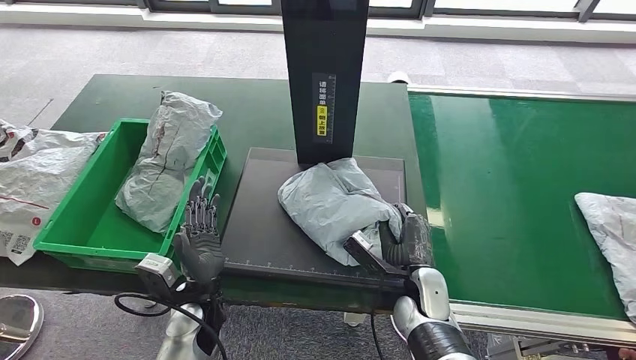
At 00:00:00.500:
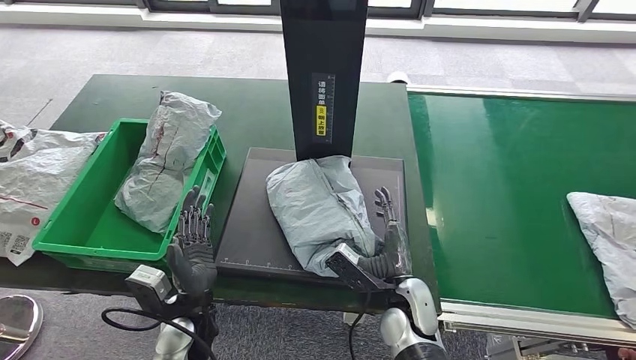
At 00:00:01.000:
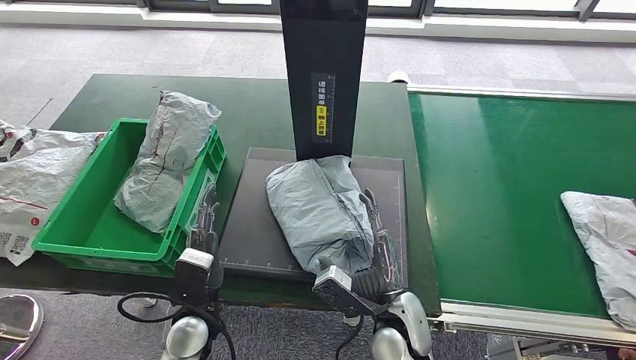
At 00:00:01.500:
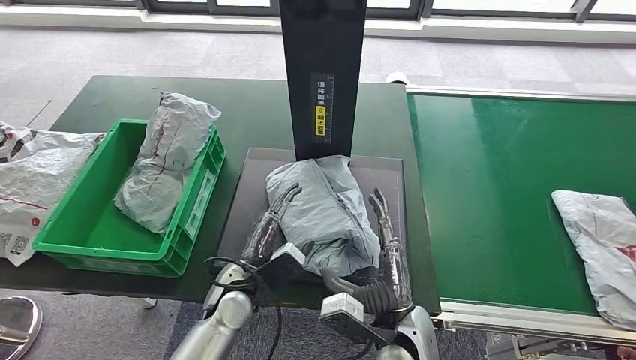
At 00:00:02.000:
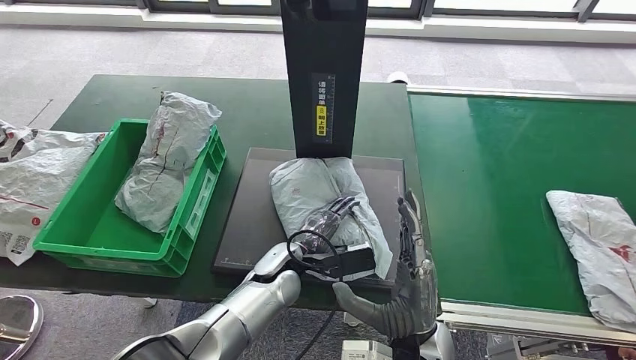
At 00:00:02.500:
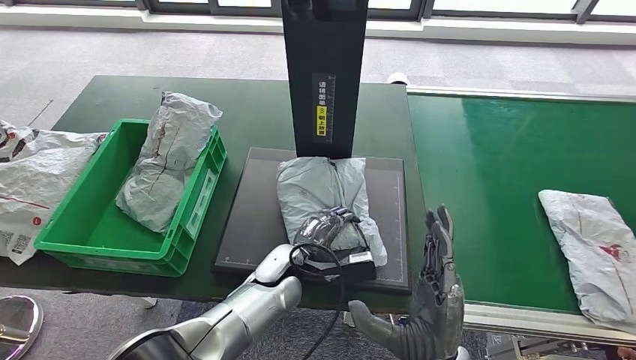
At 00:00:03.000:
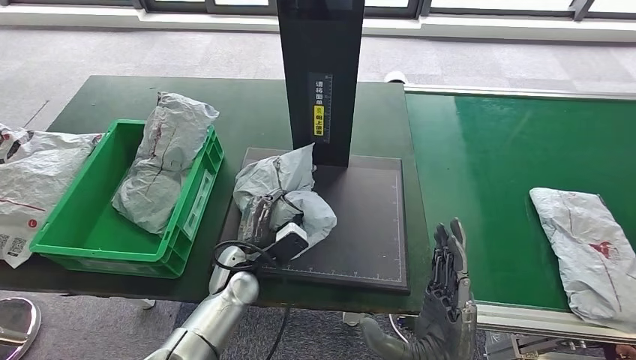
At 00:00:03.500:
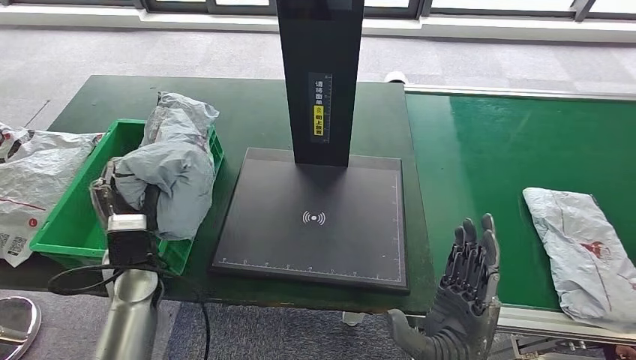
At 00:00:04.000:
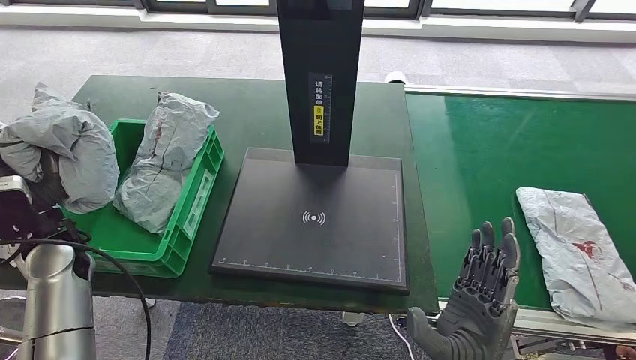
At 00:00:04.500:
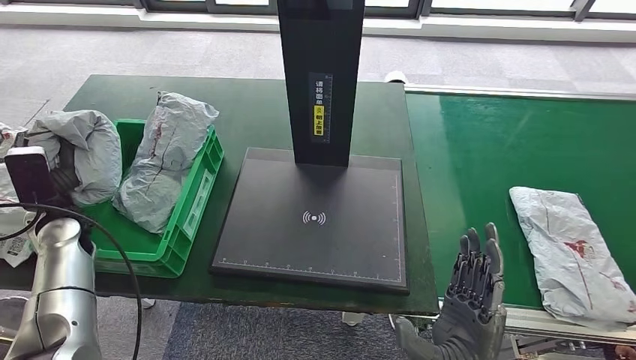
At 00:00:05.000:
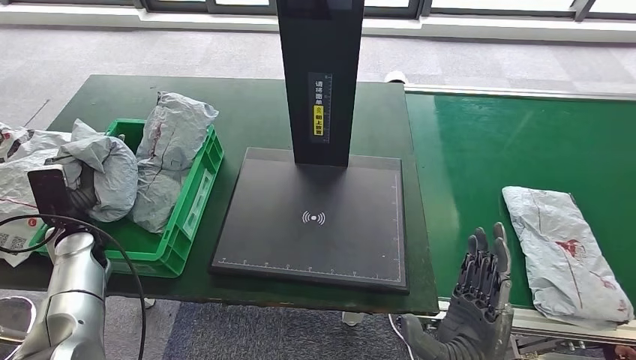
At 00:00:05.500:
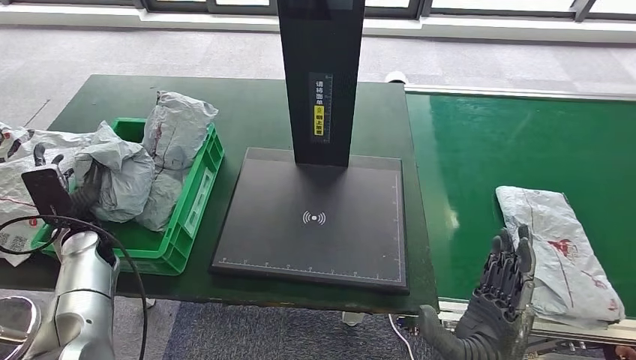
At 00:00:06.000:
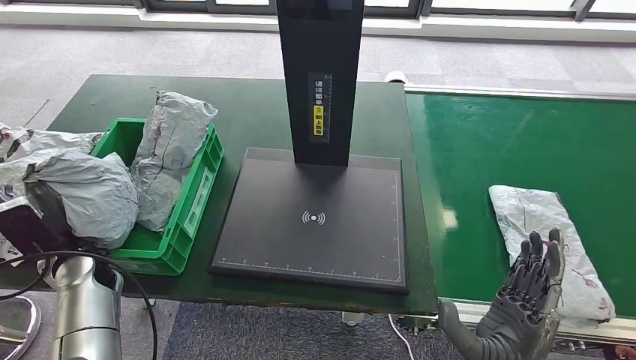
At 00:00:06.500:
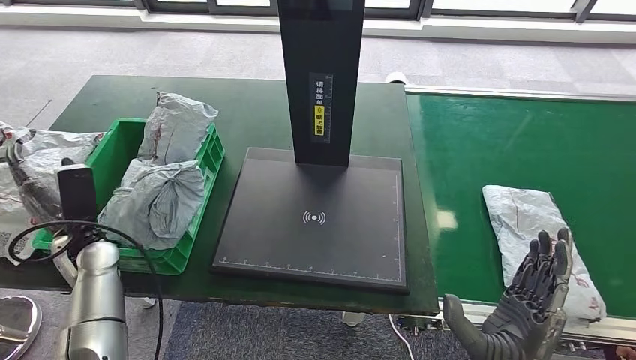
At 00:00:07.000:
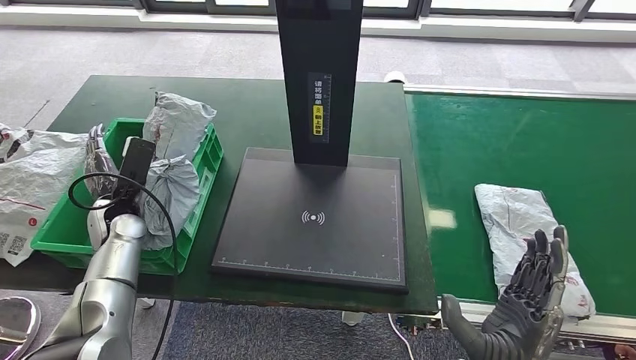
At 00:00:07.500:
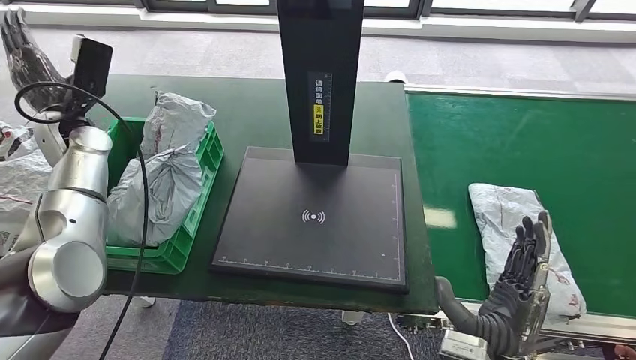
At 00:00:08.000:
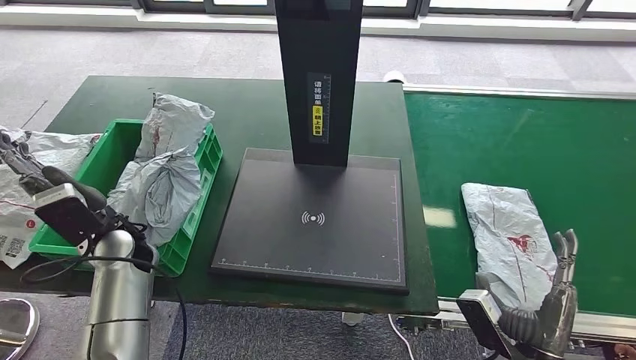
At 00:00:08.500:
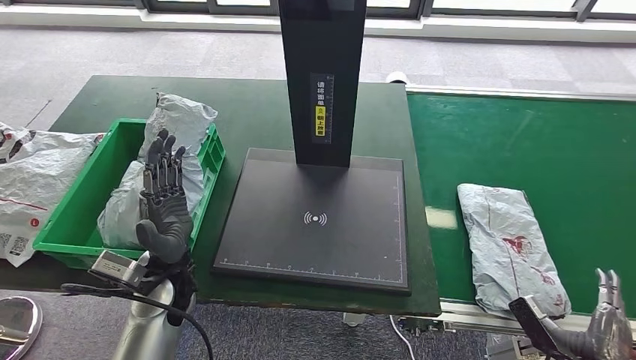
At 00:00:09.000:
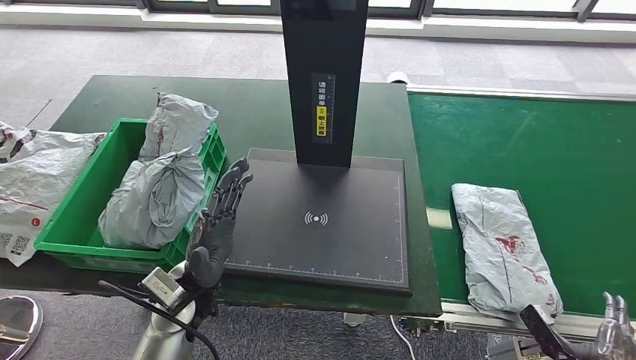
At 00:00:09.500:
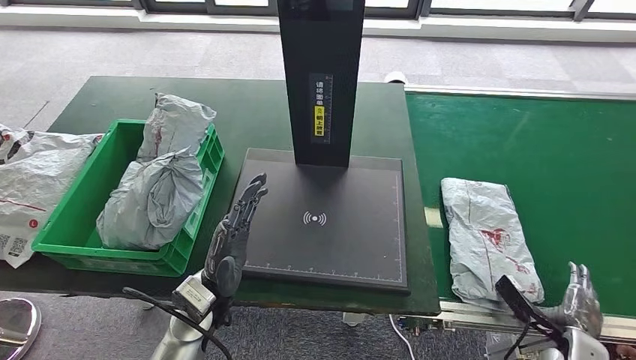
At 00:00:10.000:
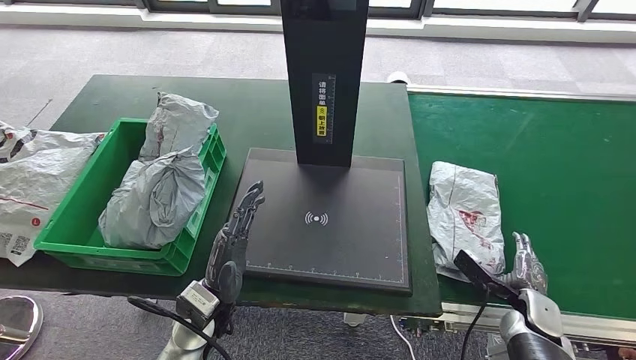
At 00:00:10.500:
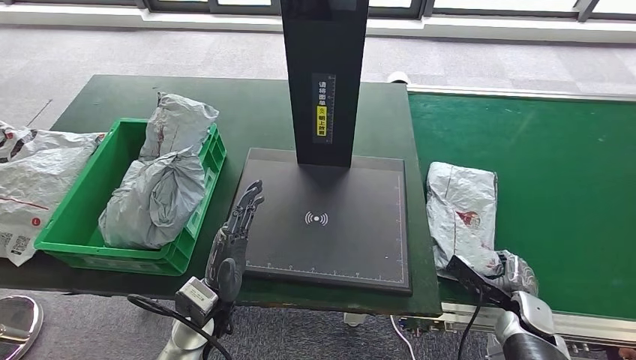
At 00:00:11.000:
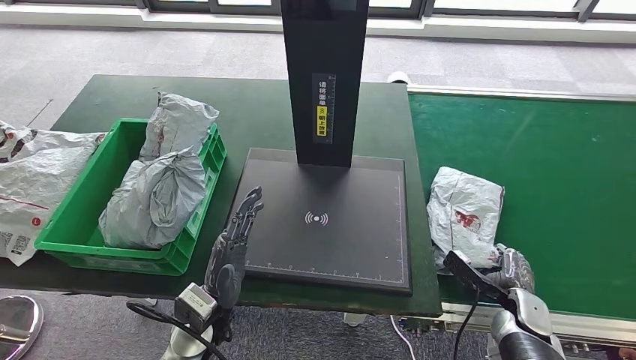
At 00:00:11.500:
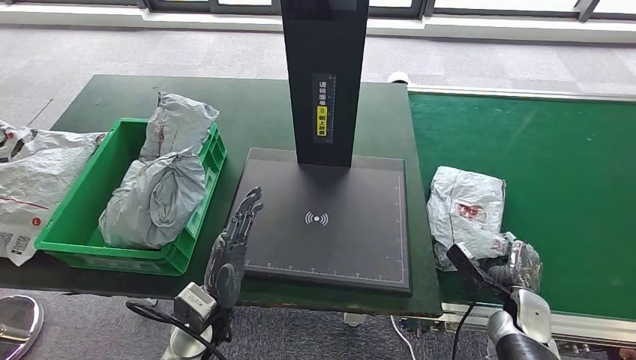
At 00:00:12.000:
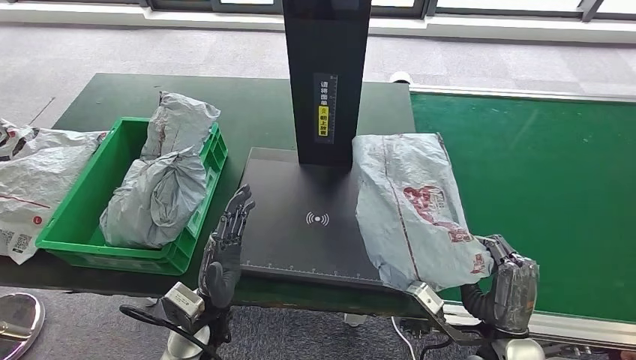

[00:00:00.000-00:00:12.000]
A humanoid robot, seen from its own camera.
Step, 00:00:00.500 to 00:00:03.000: Pick up the parcel from the inbound machine.
Step, 00:00:03.500 to 00:00:06.000: Place the parcel into the delivery box.
Step, 00:00:07.500 to 00:00:11.500: Pick up the parcel from the conveyor belt.
00:00:00.000 to 00:00:02.000: The left hand travels to the right and forward by approximately 15 cm. The right hand goes approximately 15 cm upward and backward.
00:00:04.000 to 00:00:06.000: The left hand heads downward, covering approximately 5 cm.

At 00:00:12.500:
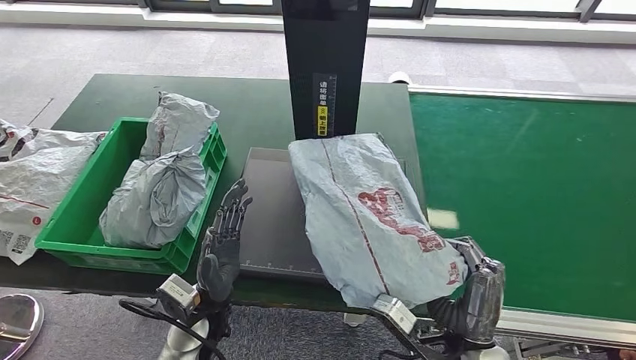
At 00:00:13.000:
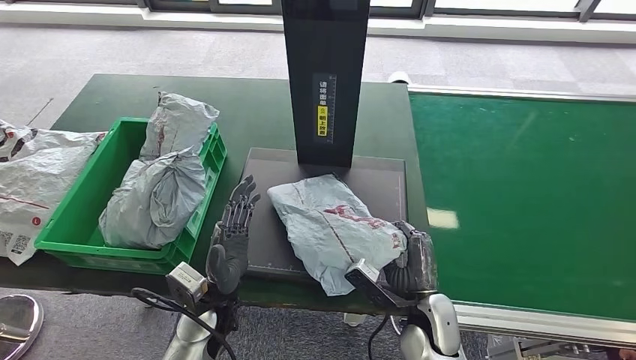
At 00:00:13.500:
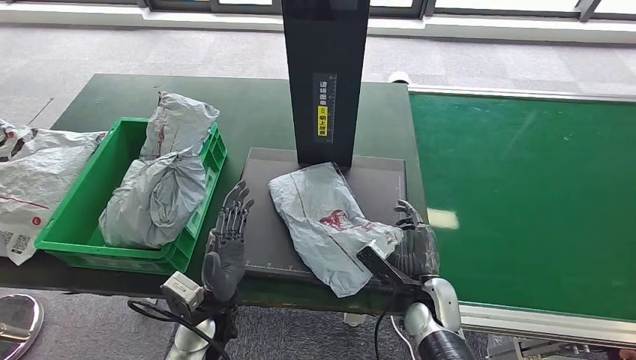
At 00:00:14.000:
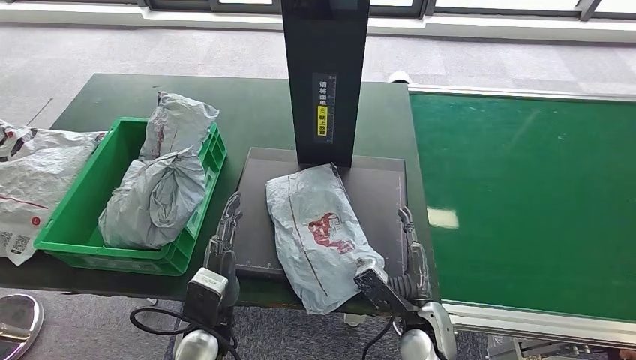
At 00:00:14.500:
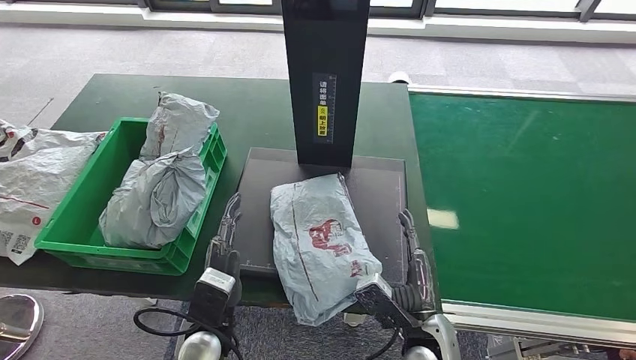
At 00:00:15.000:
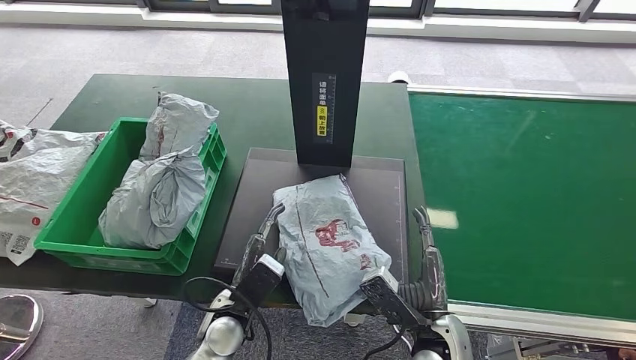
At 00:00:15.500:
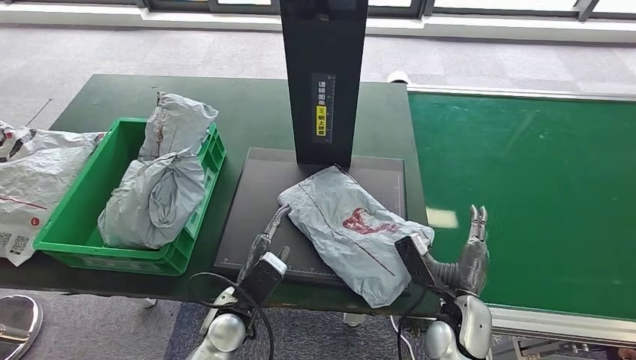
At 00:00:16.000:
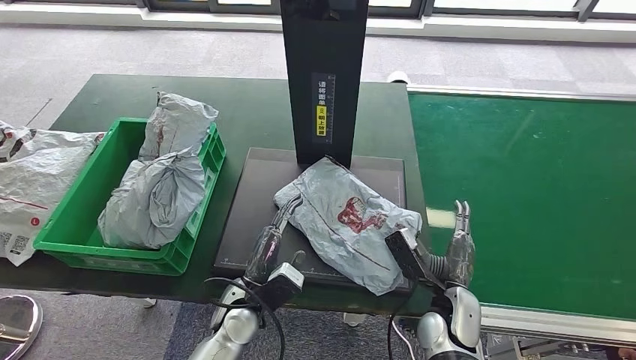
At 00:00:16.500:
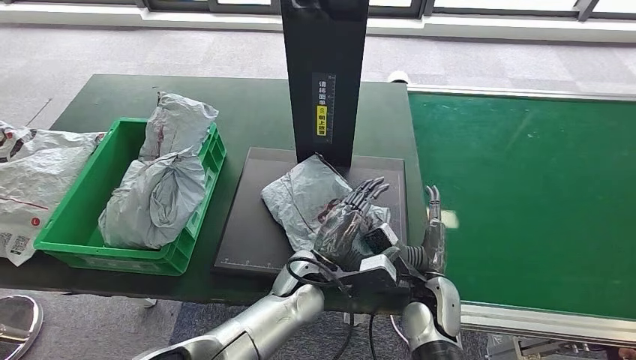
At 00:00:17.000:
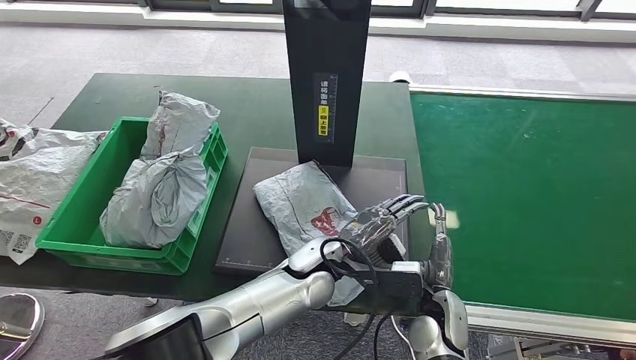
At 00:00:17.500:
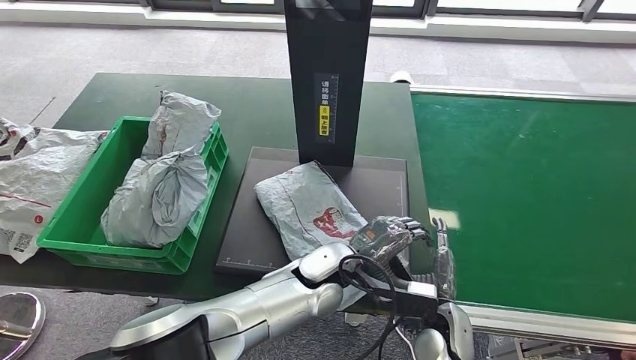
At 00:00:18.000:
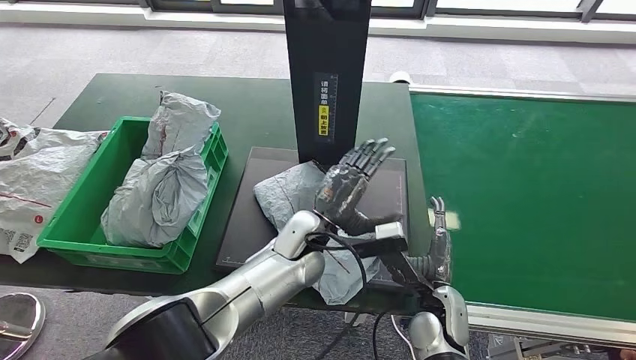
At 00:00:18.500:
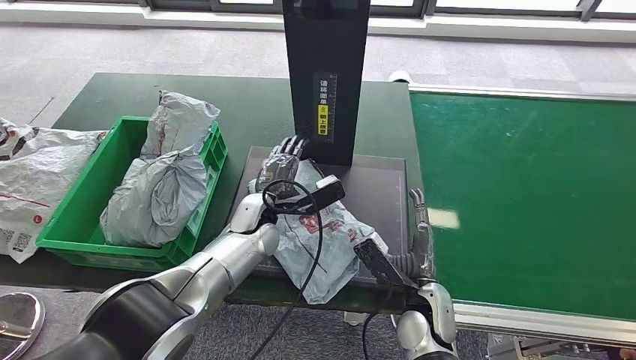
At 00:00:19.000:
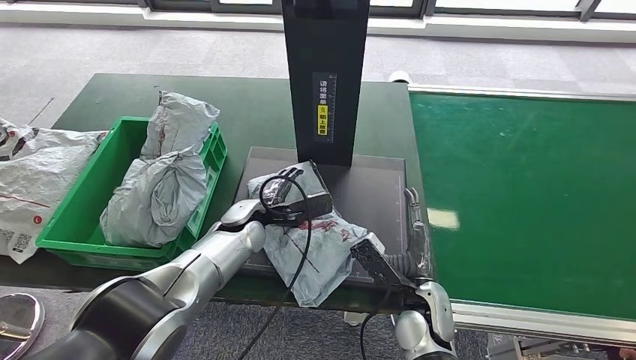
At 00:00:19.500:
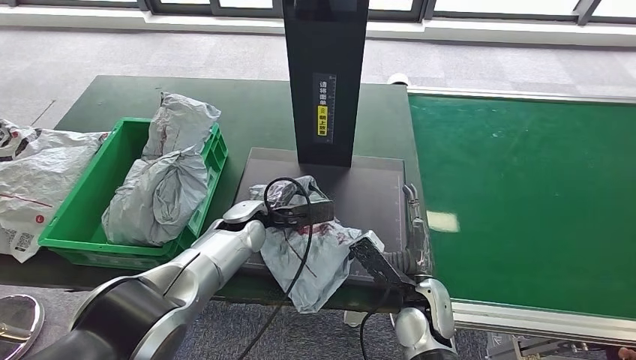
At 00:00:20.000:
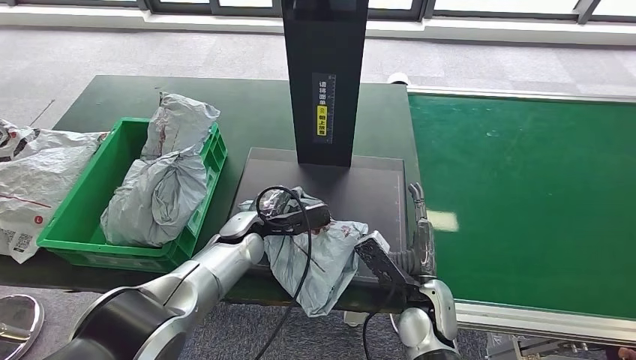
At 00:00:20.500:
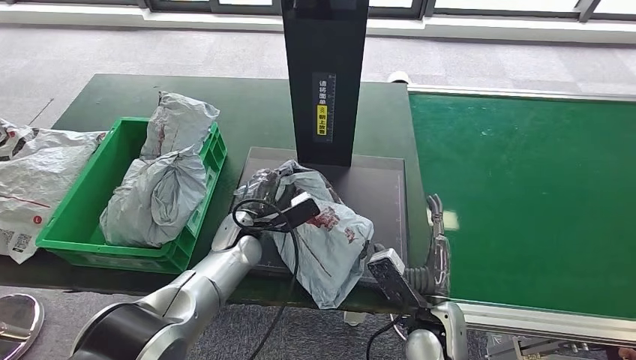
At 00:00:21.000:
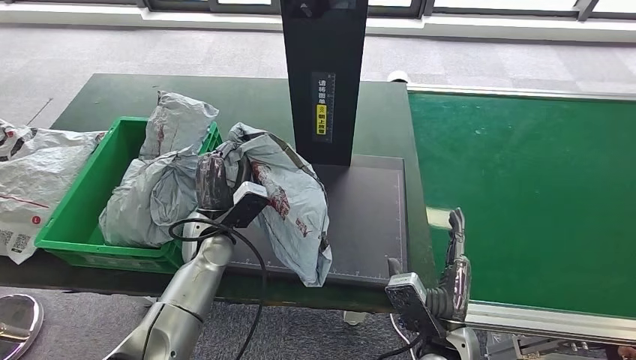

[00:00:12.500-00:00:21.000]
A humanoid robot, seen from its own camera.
Step, 00:00:12.500 to 00:00:14.000: Place the parcel onto the inbound machine.
00:00:12.500 to 00:00:14.500: The right hand heads downward, covering about 5 cm.
00:00:14.500 to 00:00:16.500: The right hand goes roughly 5 cm forward; the left hand is displaced to the right and forward by approximately 15 cm.
00:00:16.500 to 00:00:19.000: The left hand shifts approximately 15 cm to the left and forward.
00:00:19.000 to 00:00:21.000: The right hand goes about 5 cm backward; the left hand shifts roughly 5 cm to the left.
